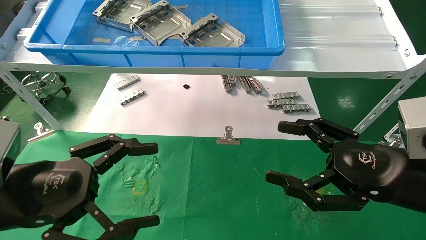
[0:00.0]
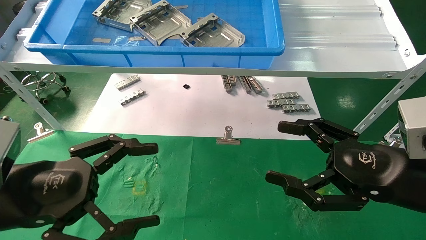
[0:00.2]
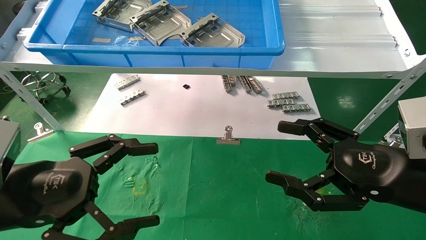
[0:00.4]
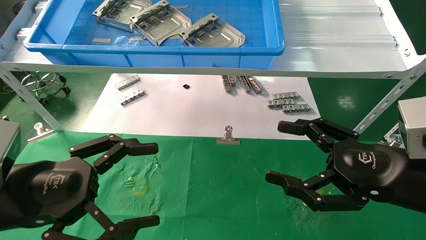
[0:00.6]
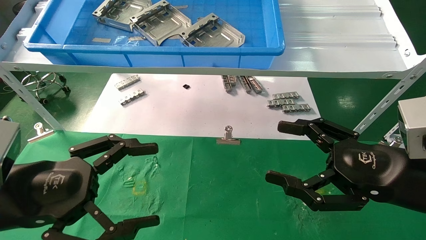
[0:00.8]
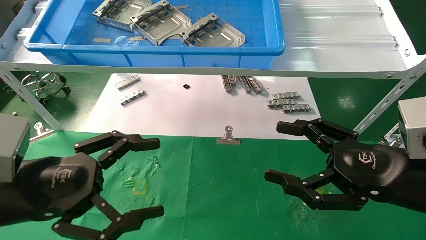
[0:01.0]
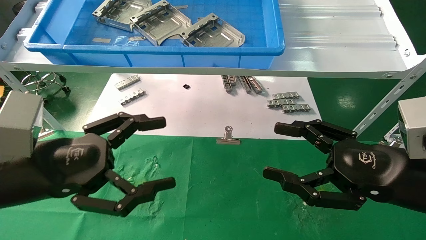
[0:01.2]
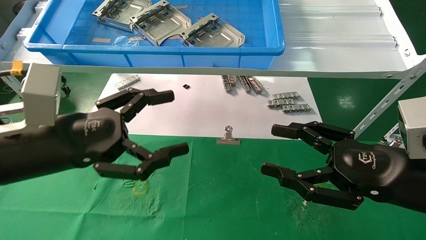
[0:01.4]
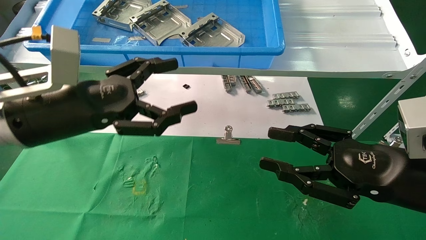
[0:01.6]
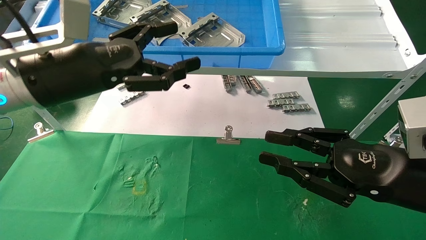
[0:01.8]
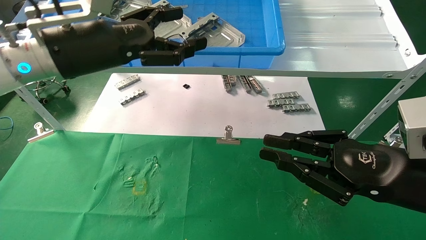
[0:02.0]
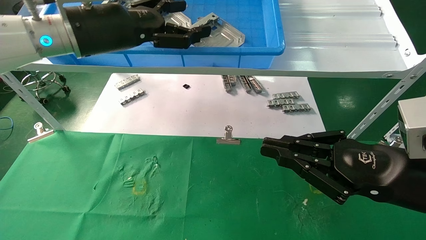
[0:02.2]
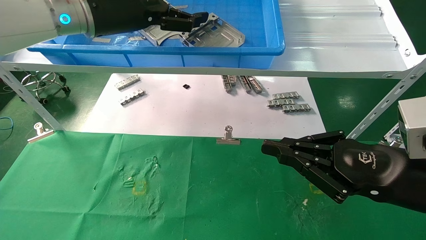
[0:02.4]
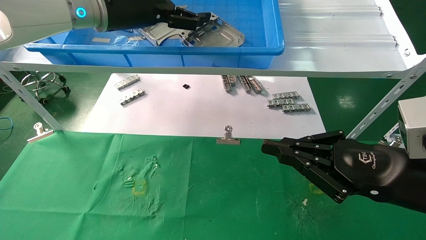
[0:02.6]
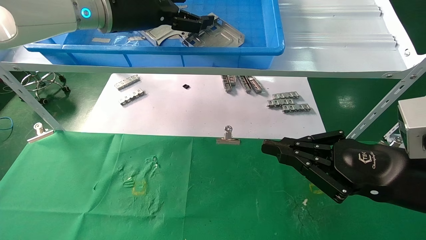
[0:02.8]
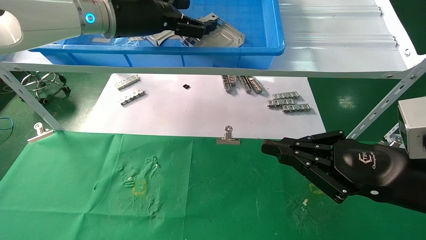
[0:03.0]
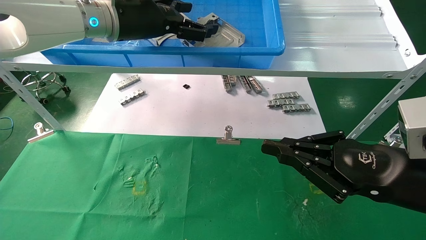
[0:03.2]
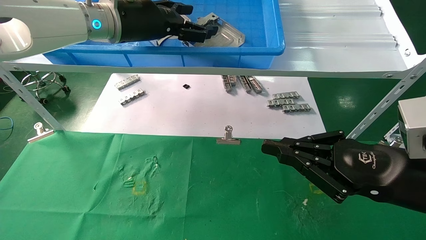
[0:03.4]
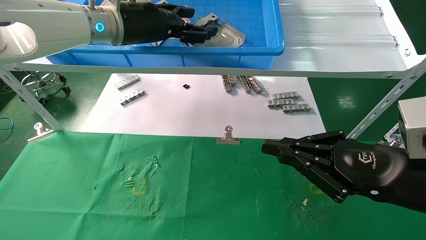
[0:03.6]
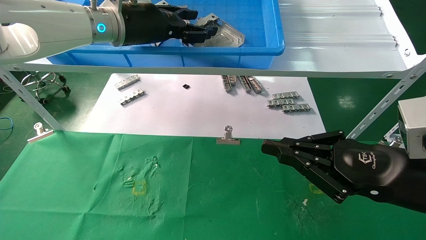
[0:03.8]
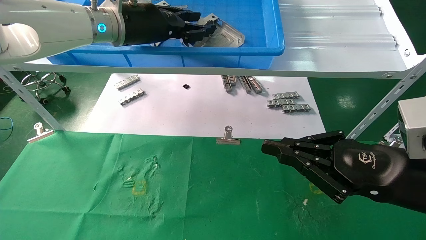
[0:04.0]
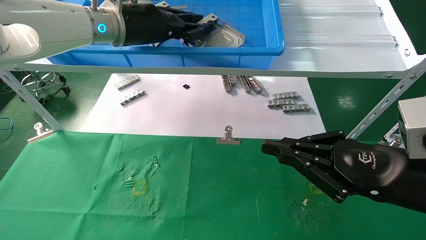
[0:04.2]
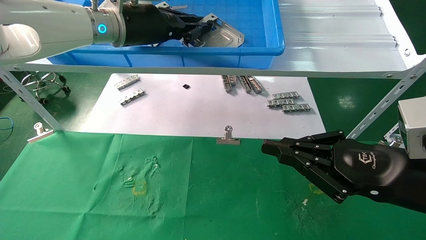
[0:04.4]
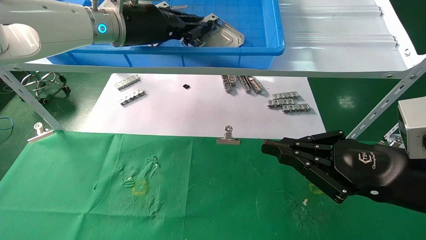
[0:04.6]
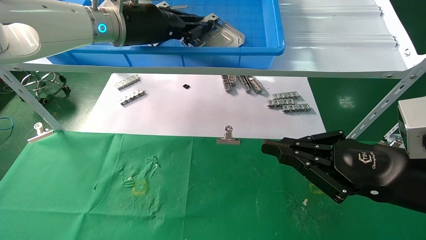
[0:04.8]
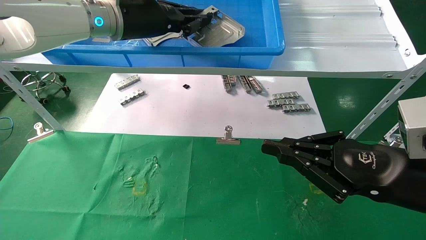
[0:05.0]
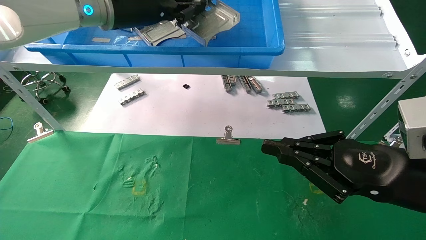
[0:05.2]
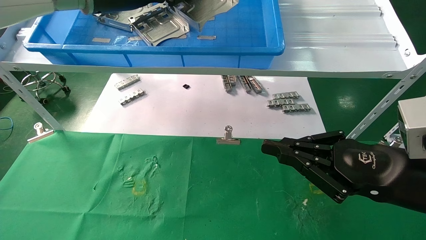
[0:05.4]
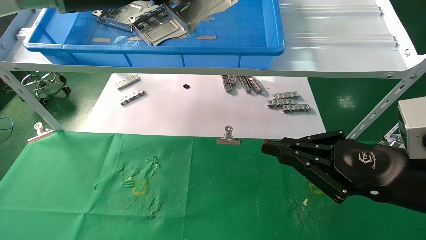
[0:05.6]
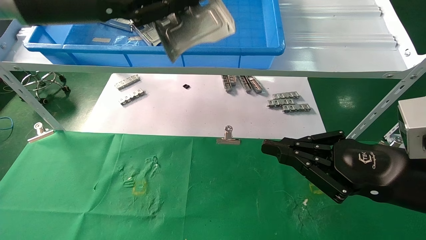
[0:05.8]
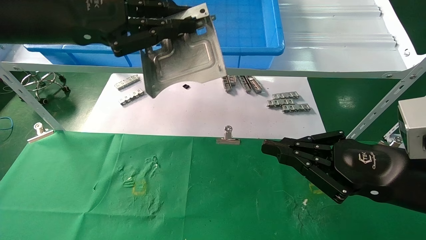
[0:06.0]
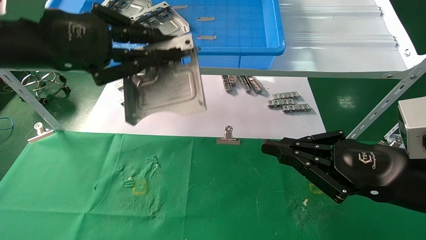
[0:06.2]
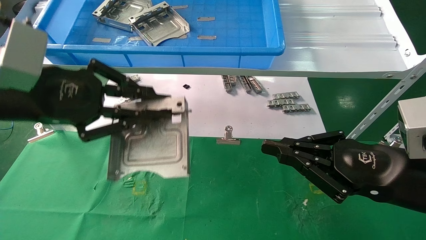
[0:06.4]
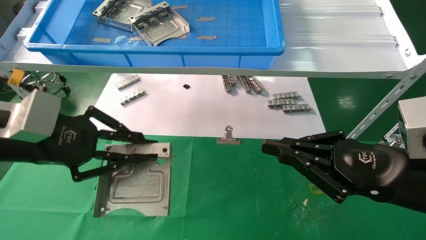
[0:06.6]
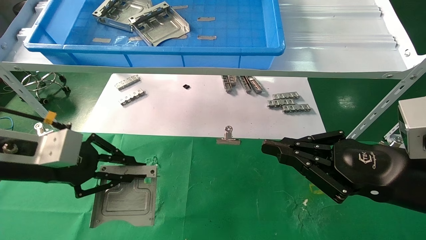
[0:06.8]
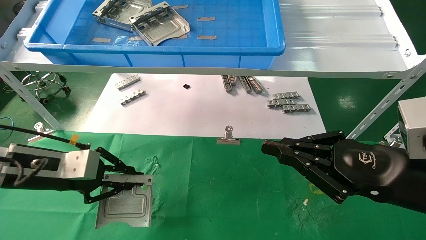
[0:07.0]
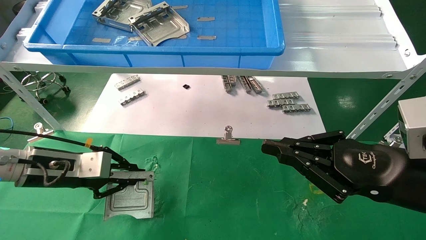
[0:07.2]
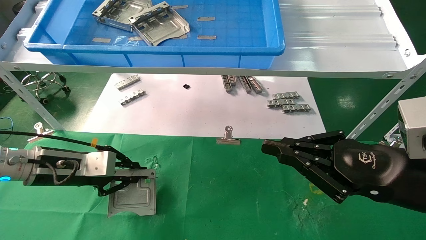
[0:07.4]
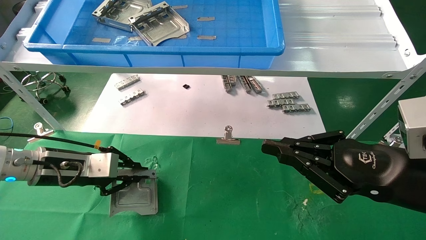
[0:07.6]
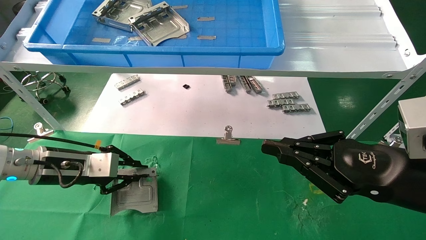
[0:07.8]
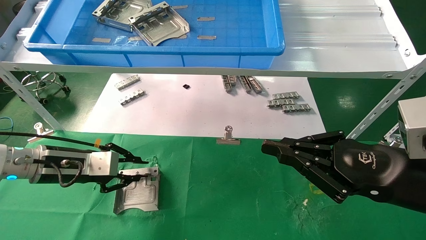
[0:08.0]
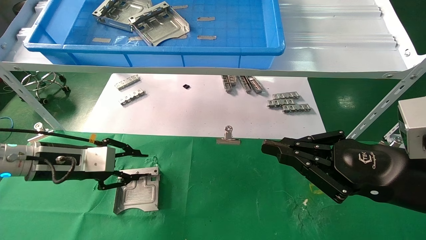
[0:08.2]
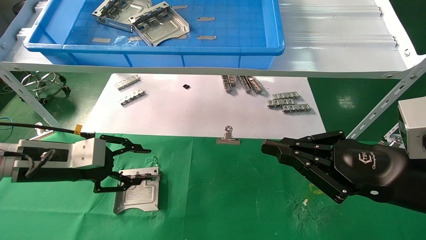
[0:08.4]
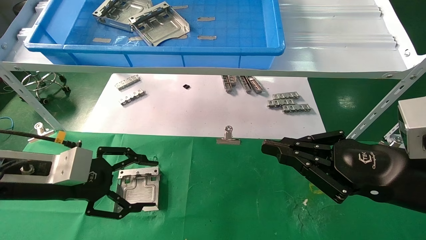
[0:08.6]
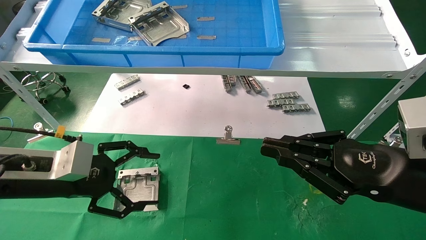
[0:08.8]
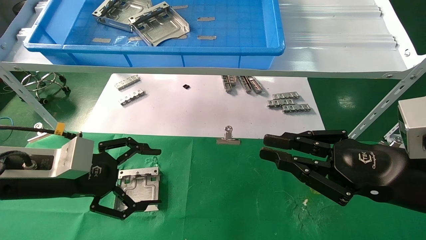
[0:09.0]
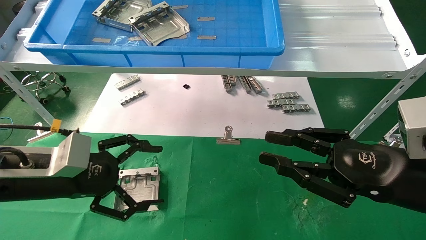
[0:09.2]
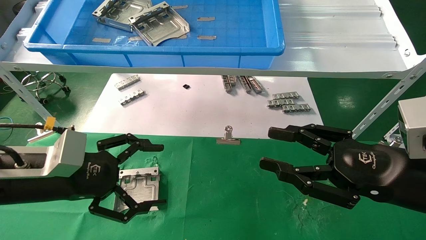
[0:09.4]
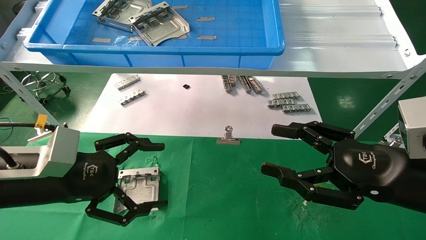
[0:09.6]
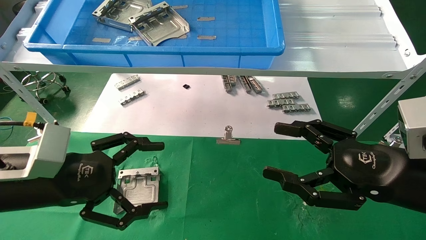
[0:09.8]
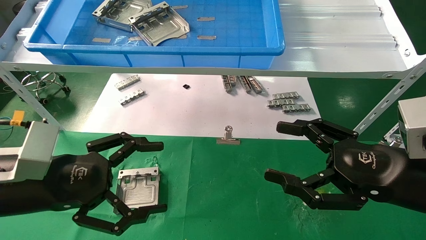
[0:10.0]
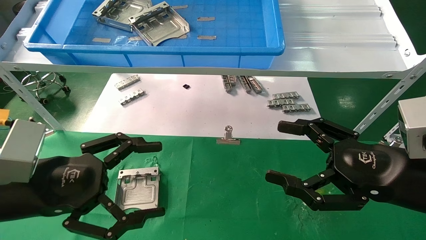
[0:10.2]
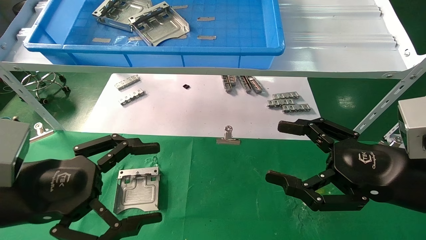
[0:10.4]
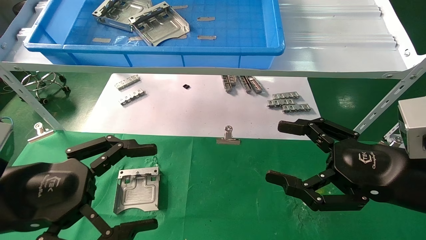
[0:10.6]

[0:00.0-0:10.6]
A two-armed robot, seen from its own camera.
Task of the whole recording: use the mechanical arm to pick up the parts and place them on the table.
Step, 0:01.4 to 0:04.4: Pick up the hard drive bracket from the feeding area.
Step, 0:04.6 to 0:08.0: Place the hard drive bracket into the box.
0:00.0 to 0:01.6: The right gripper closes. Meanwhile the left gripper moves forward and upward, approximately 10 cm.
0:01.6 to 0:03.0: The left gripper moves upward, forward and to the right, some 20 cm. The right gripper closes its fingers.
0:03.0 to 0:04.6: The left gripper closes up.
0:04.6 to 0:06.0: The left gripper shifts about 15 cm backward and to the left.
0:06.0 to 0:07.6: The left gripper travels downward by roughly 25 cm.
0:07.6 to 0:09.0: The left gripper travels backward by approximately 5 cm, and opens.
0:09.0 to 0:10.6: The right gripper opens, while the left gripper is displaced backward by some 10 cm.

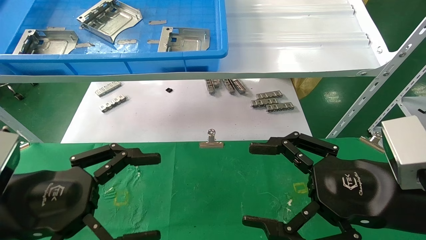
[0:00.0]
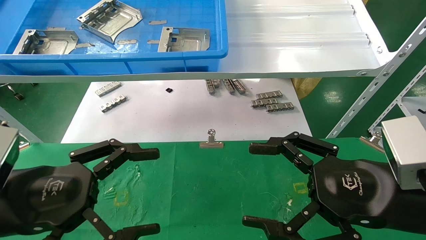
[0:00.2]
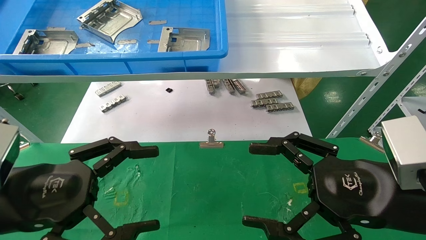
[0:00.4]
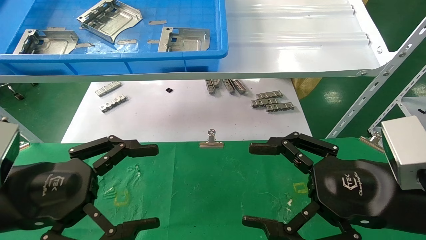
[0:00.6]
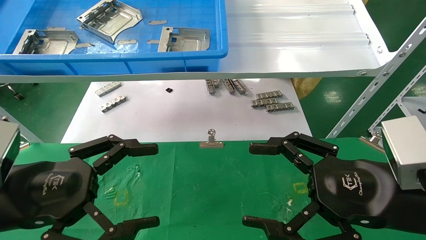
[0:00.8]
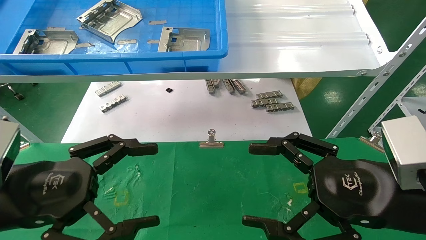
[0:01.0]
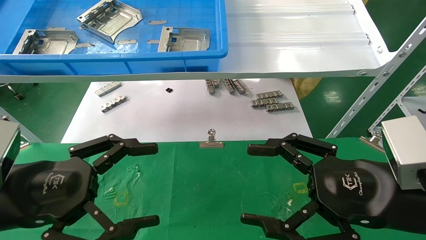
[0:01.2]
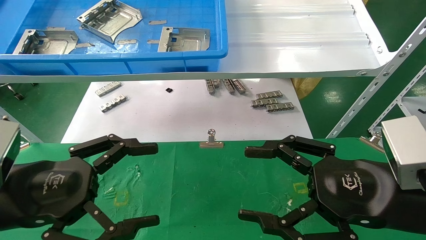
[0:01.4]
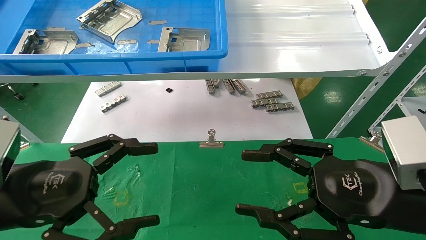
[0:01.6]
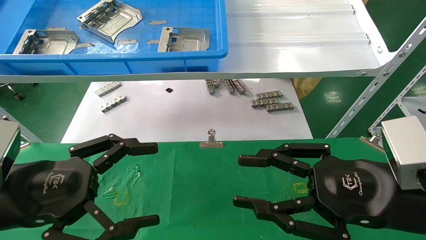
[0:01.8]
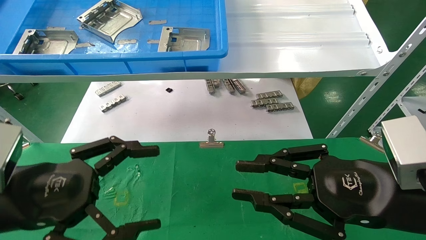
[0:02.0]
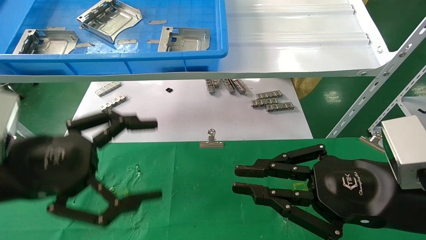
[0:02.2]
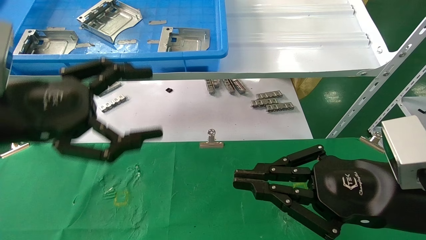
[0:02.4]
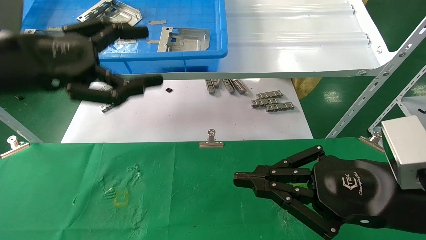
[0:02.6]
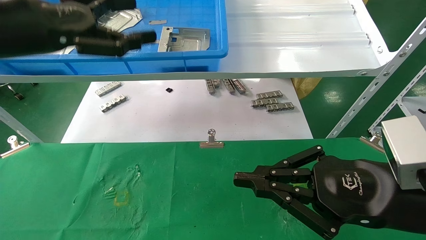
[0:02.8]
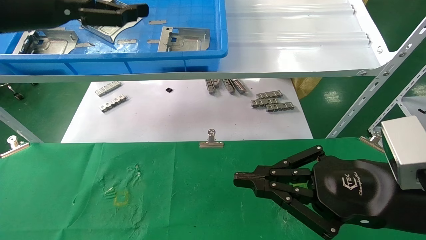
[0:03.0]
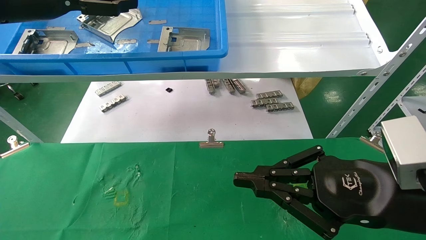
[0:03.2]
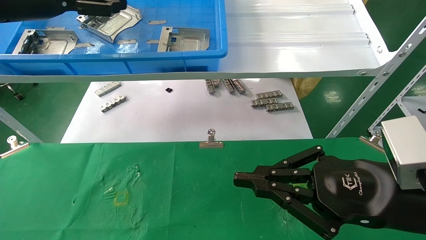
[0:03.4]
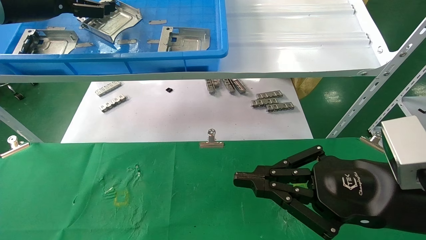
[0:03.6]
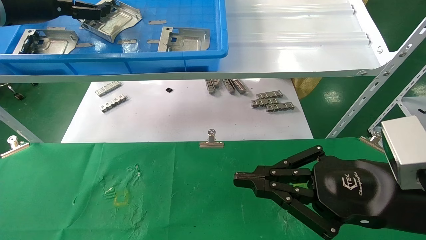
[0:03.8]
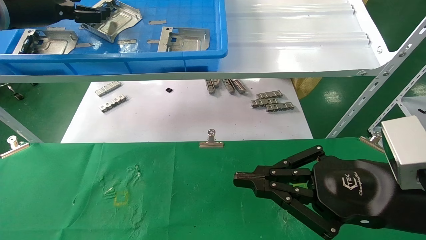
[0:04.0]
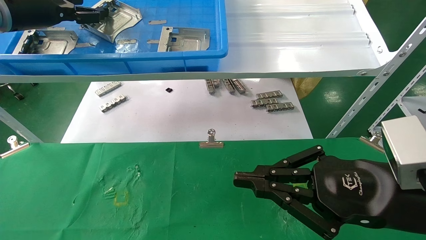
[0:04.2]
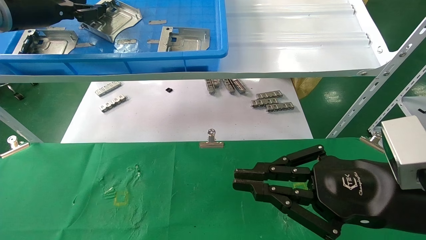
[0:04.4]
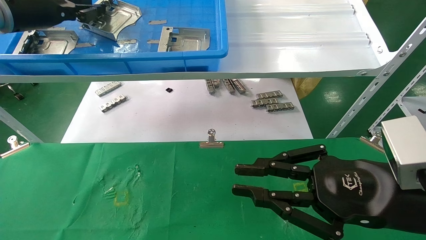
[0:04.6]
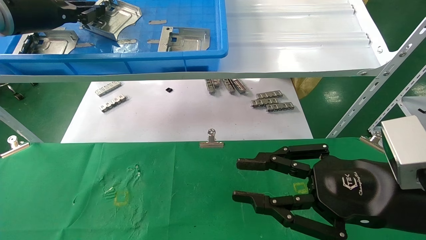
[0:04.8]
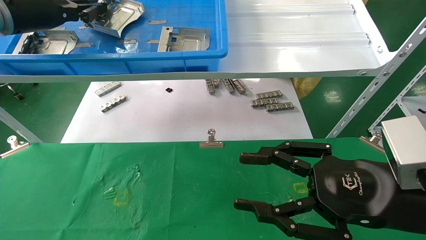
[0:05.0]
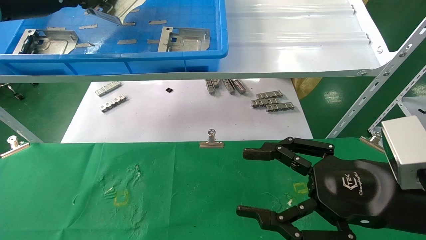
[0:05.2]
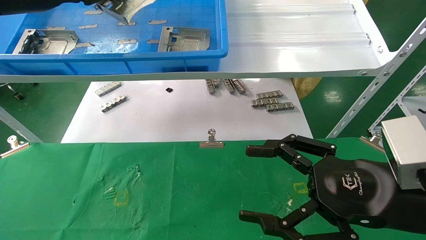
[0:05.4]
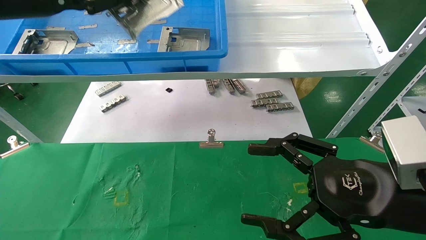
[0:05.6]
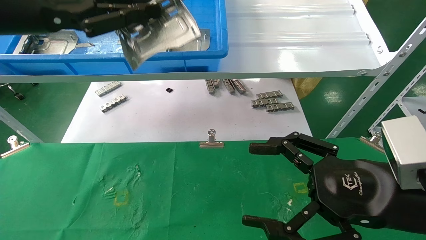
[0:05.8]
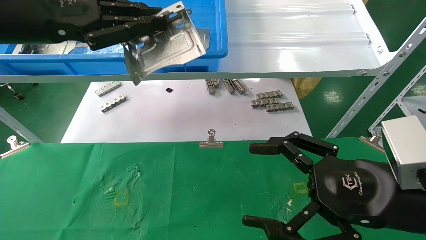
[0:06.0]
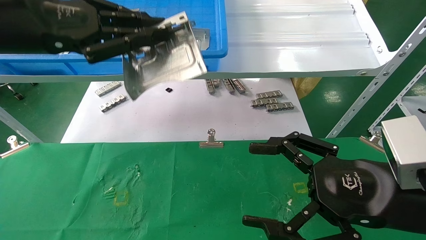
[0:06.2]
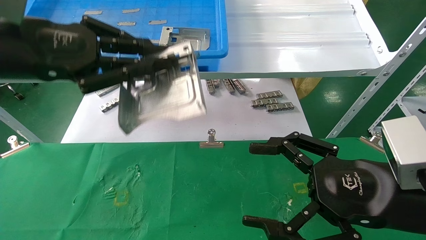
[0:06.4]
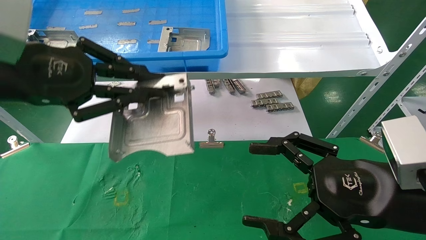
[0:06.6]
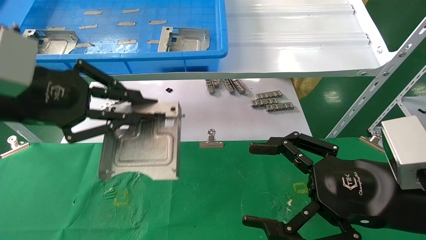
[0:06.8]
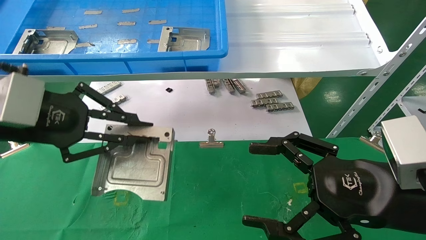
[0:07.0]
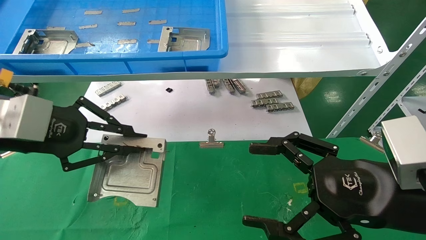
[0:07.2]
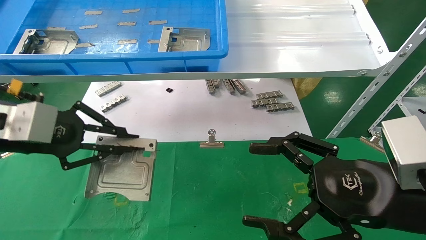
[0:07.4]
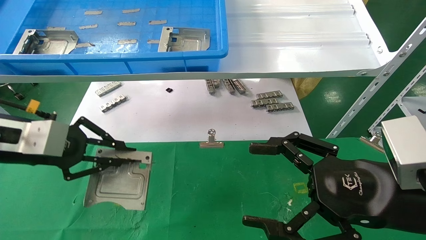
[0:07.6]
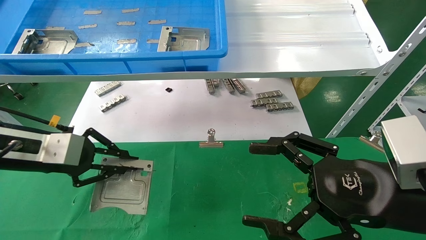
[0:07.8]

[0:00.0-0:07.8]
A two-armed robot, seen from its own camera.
Task of the whole recording: use the mechanical arm to pick up the parts and place them on the table.
Step, 0:02.2 to 0:04.6: Pick up the hard drive bracket from the feeding area.
0:00.0 to 0:01.6: Both grippers stay put.
0:01.6 to 0:03.2: The left gripper travels upward and forward by roughly 30 cm; the right gripper closes its fingers.
0:03.2 to 0:04.6: The left gripper shifts roughly 5 cm forward, and closes up.
0:04.6 to 0:06.2: The left gripper travels backward and to the right by approximately 15 cm; the right gripper opens.
0:06.2 to 0:07.8: The left gripper travels downward by approximately 15 cm.
